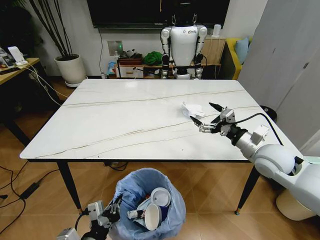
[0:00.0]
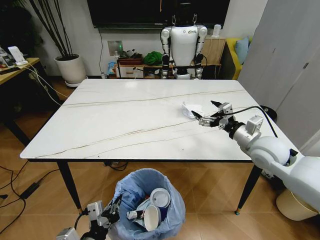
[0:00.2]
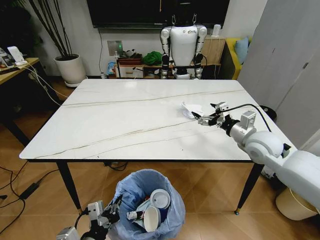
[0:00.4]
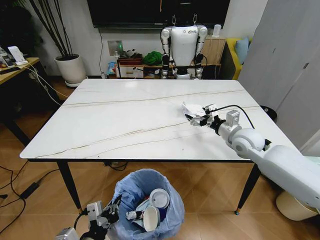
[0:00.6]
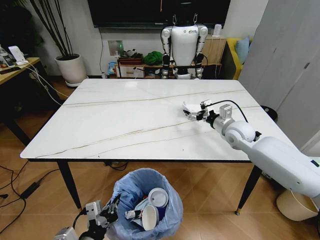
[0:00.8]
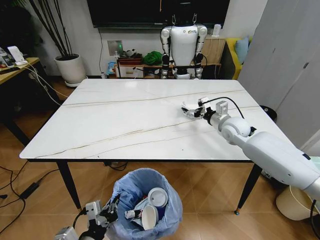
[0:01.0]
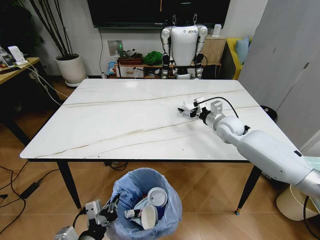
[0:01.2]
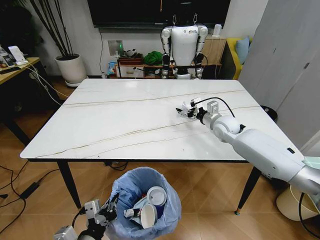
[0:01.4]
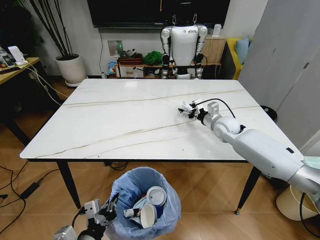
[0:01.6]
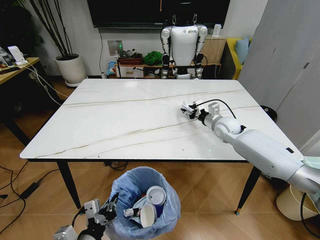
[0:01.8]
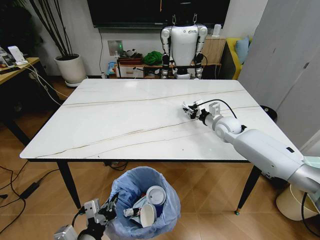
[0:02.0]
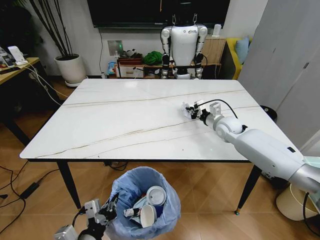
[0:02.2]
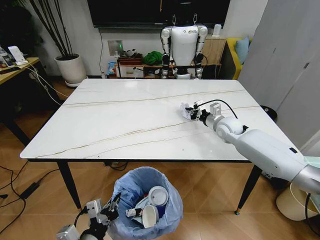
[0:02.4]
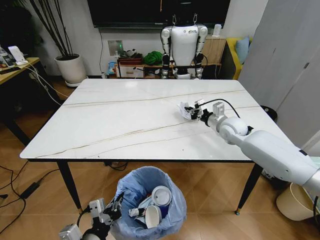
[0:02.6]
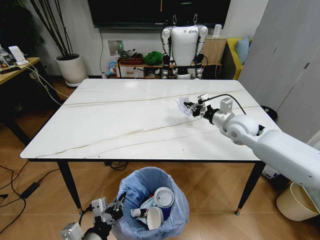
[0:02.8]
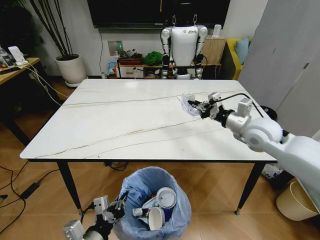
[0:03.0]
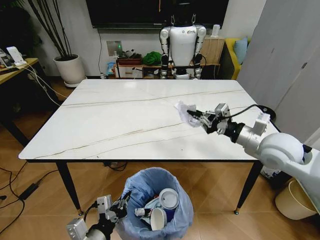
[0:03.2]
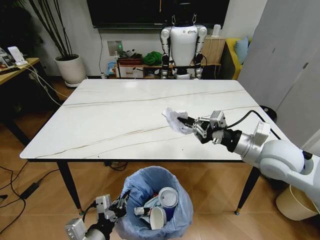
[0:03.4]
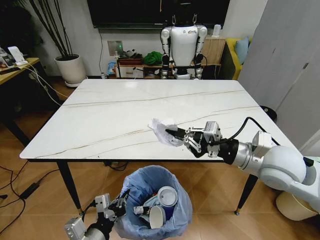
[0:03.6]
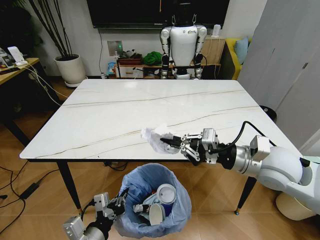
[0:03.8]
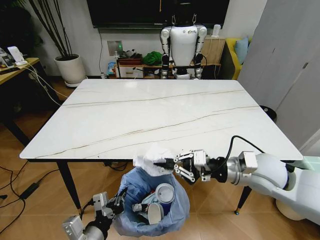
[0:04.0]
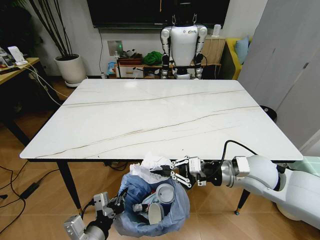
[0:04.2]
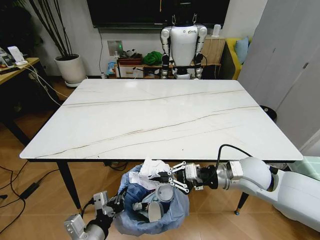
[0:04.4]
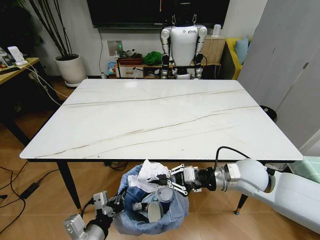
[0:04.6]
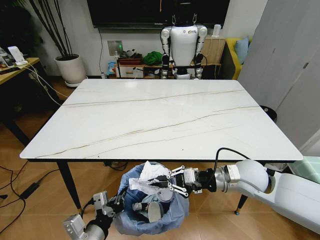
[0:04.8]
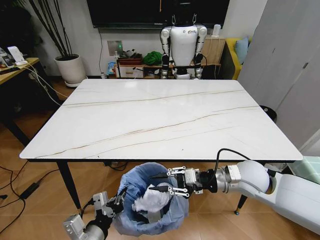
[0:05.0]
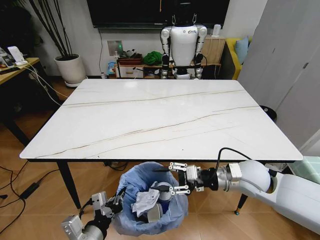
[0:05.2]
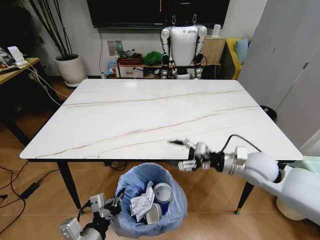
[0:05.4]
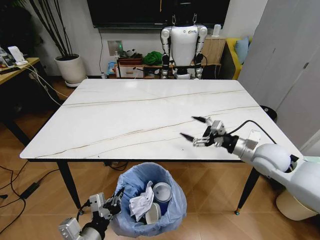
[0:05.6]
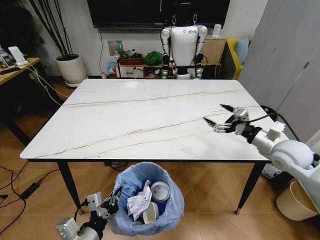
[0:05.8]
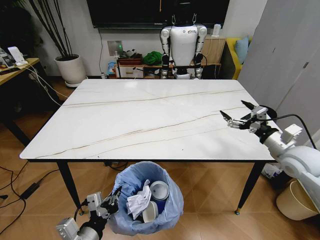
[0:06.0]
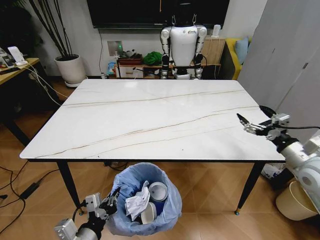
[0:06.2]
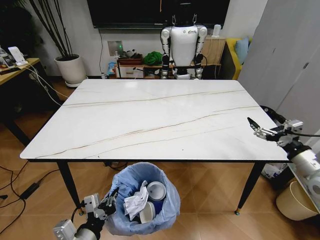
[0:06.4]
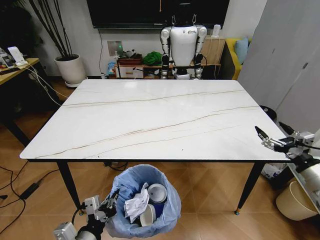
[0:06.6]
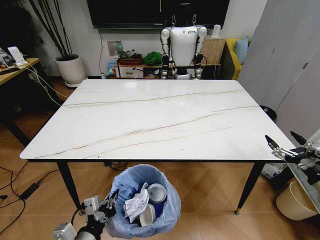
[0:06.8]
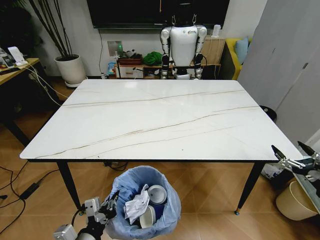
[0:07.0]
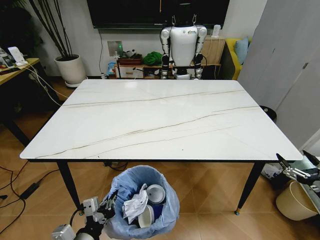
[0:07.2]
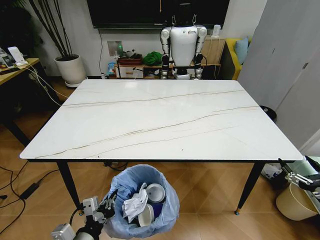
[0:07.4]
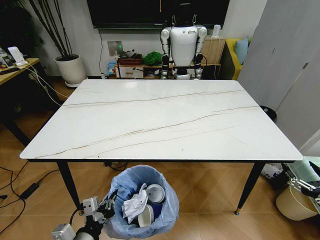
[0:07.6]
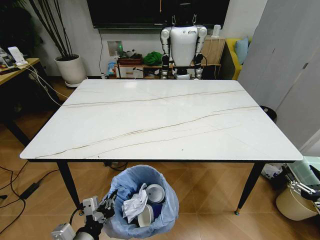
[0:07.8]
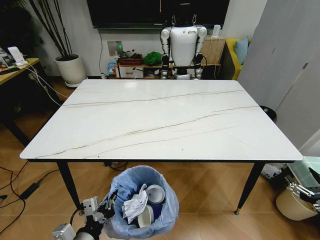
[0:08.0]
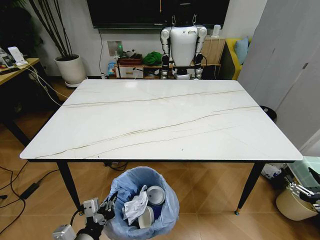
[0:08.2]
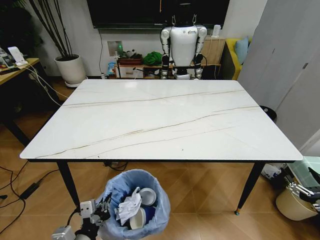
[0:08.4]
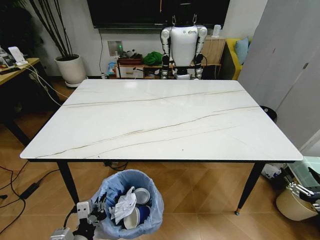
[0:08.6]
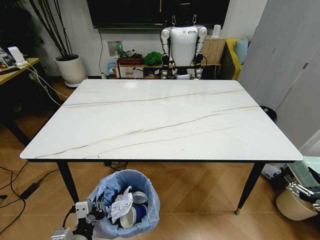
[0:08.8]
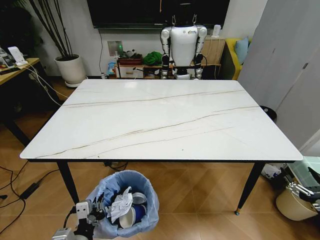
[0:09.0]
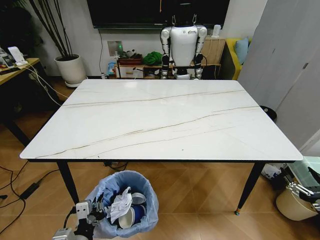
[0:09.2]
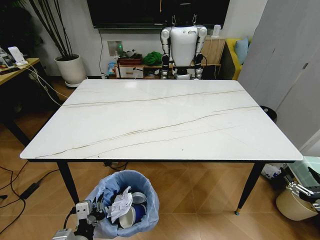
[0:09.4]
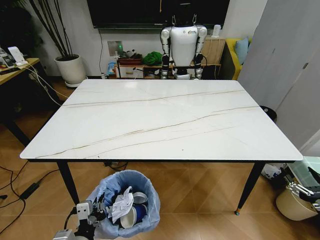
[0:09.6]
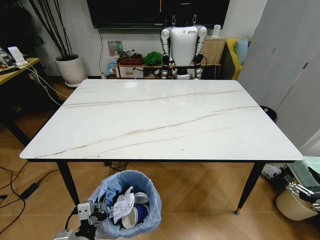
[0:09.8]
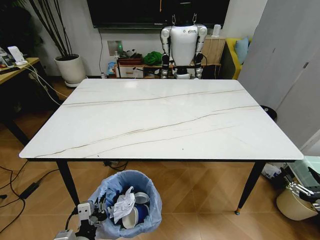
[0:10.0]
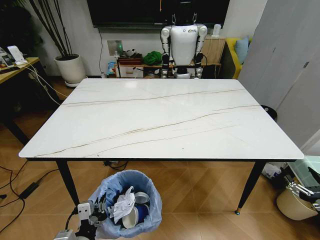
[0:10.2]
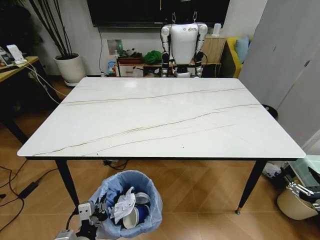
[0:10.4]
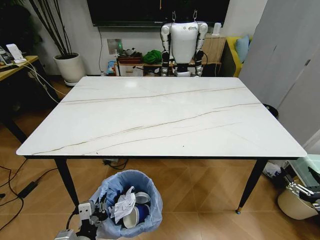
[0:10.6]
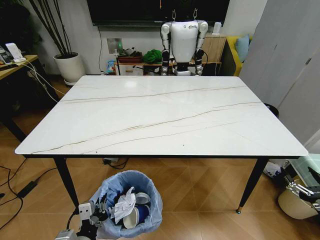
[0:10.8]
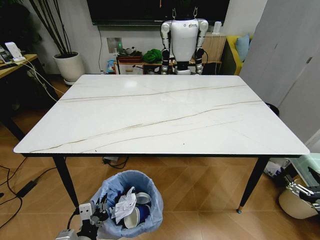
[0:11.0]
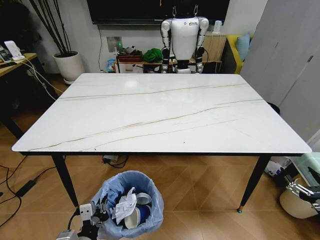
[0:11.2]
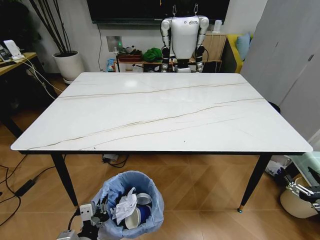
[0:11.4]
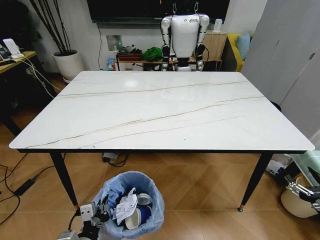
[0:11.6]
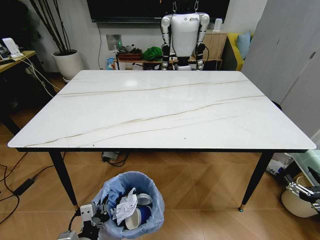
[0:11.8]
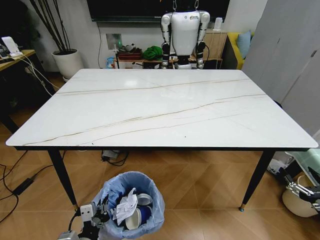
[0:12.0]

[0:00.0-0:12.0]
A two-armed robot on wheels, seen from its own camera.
Task of the whole recording: Pick up the trash bin and place the trash from the table into it.
0:00.0 to 0:01.6: The right gripper travels forward by about 20 cm.
0:01.6 to 0:03.0: The right gripper is displaced backward and upward by approximately 15 cm, and closes its fingers.
0:03.0 to 0:04.4: The right gripper shifts some 15 cm backward, downward and to the left.
0:04.4 to 0:06.0: The right gripper shifts about 15 cm to the right, and opens.
0:06.0 to 0:07.6: The right gripper goes some 25 cm backward, downward and to the right.
0:07.6 to 0:09.0: The grippers move only a little.
0:09.0 to 0:10.4: The two grippers keep their place.

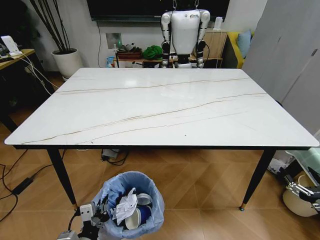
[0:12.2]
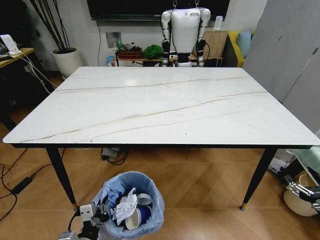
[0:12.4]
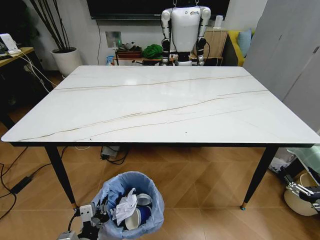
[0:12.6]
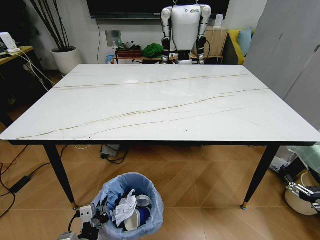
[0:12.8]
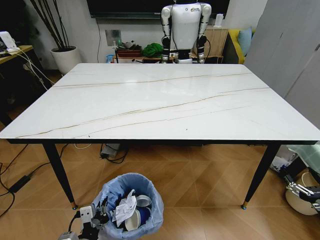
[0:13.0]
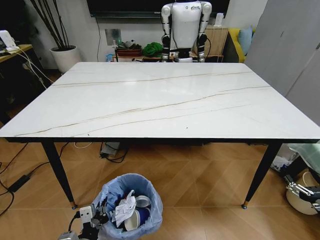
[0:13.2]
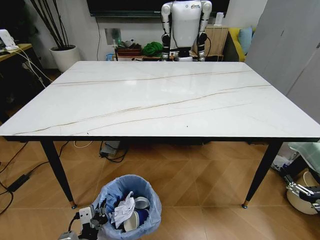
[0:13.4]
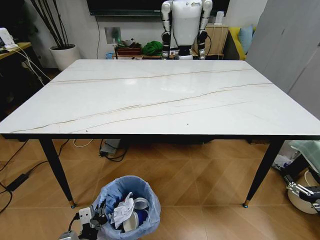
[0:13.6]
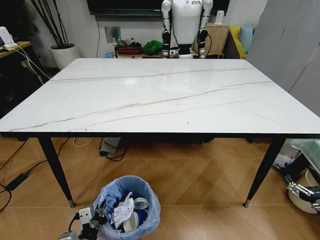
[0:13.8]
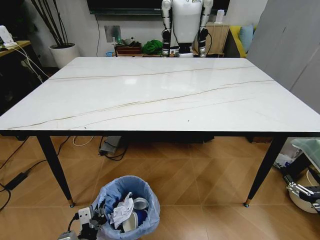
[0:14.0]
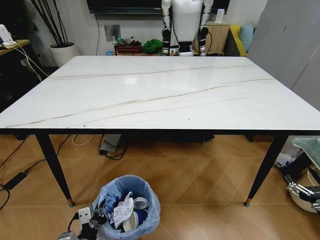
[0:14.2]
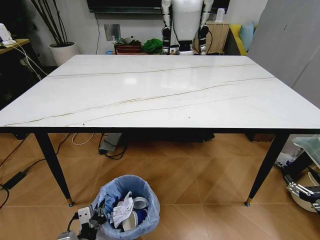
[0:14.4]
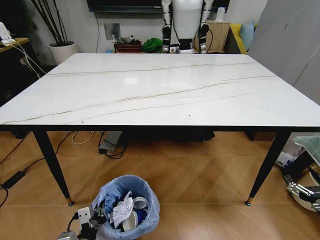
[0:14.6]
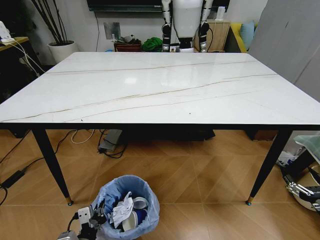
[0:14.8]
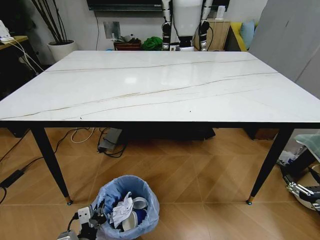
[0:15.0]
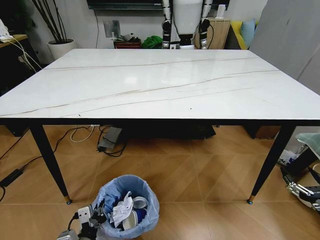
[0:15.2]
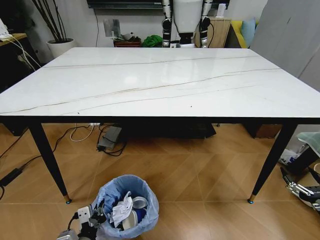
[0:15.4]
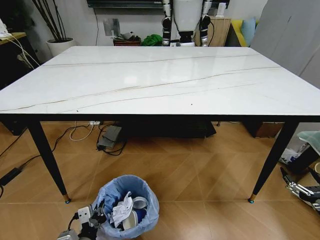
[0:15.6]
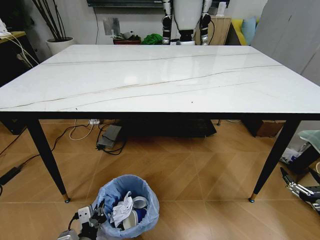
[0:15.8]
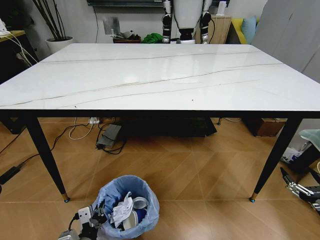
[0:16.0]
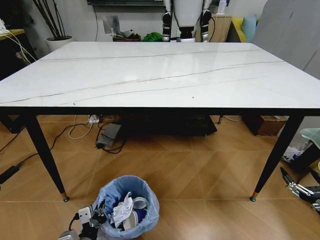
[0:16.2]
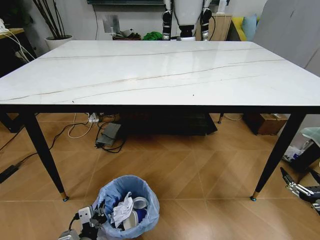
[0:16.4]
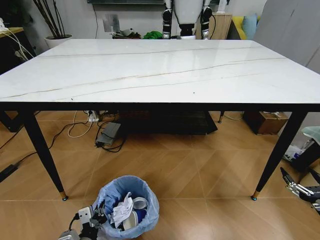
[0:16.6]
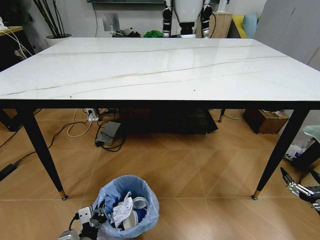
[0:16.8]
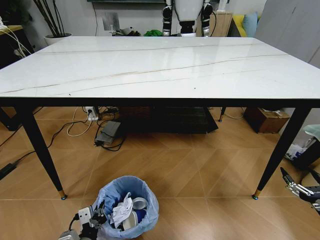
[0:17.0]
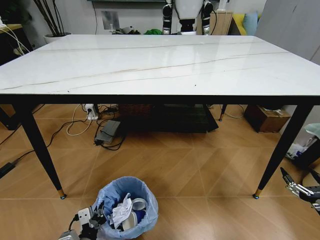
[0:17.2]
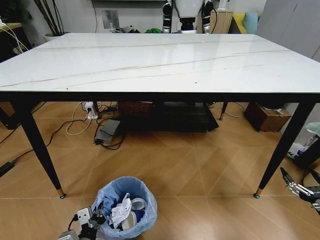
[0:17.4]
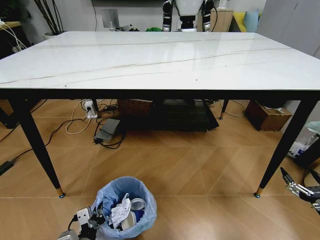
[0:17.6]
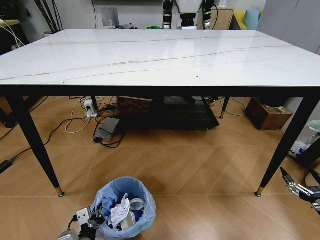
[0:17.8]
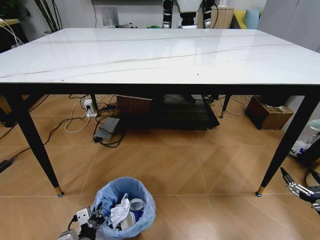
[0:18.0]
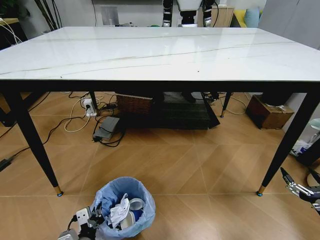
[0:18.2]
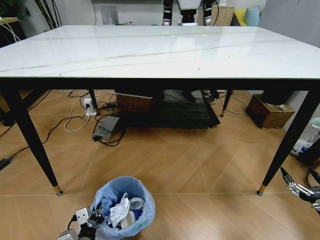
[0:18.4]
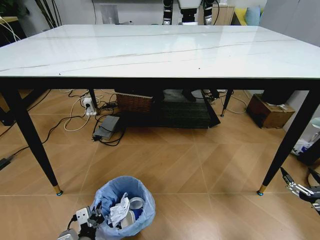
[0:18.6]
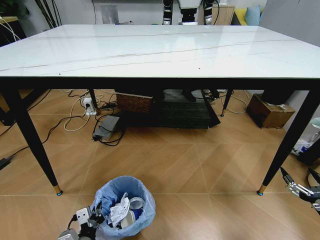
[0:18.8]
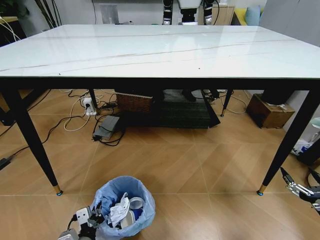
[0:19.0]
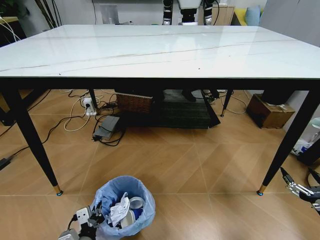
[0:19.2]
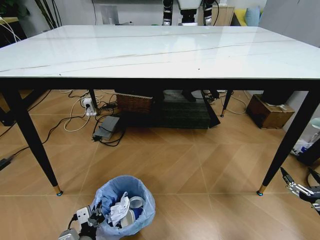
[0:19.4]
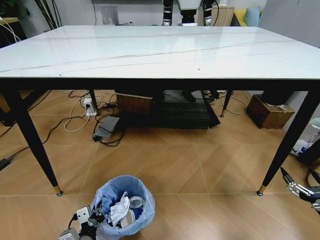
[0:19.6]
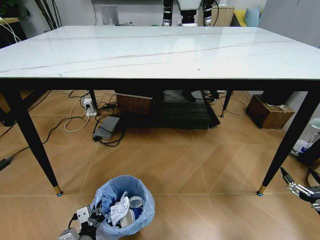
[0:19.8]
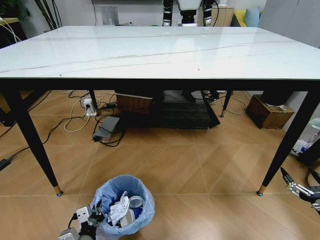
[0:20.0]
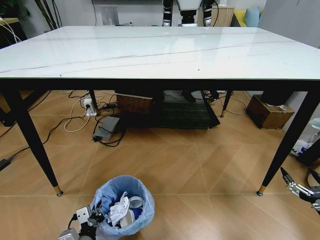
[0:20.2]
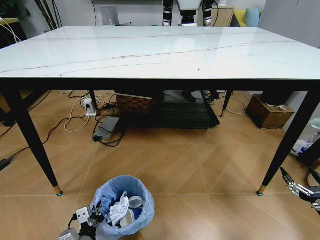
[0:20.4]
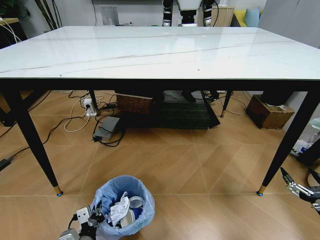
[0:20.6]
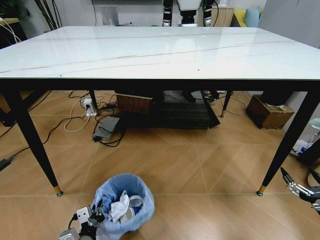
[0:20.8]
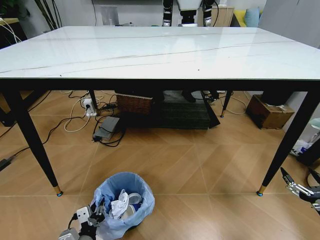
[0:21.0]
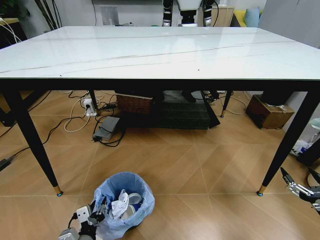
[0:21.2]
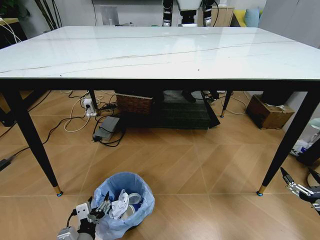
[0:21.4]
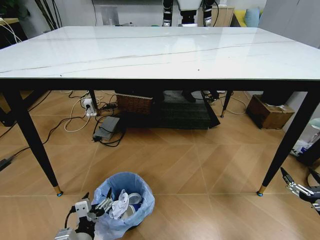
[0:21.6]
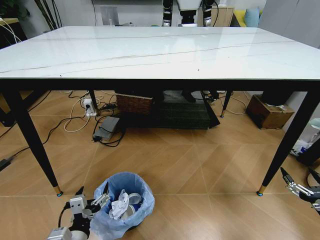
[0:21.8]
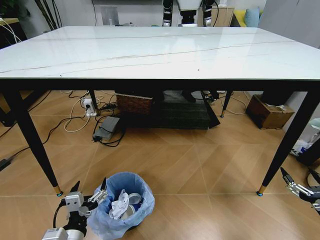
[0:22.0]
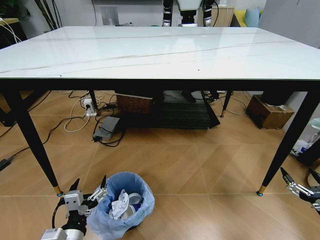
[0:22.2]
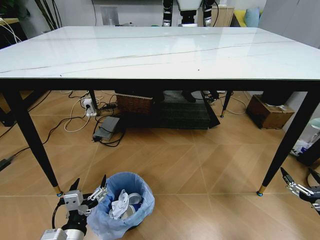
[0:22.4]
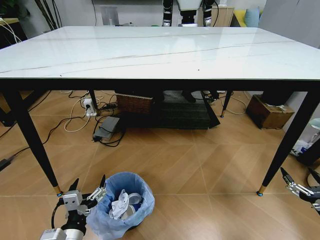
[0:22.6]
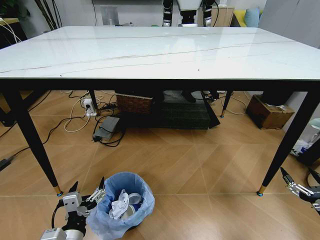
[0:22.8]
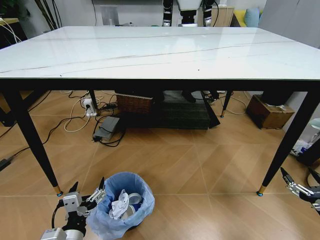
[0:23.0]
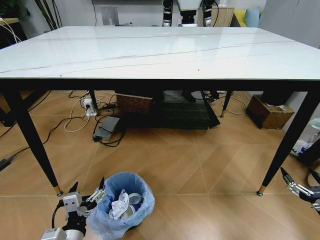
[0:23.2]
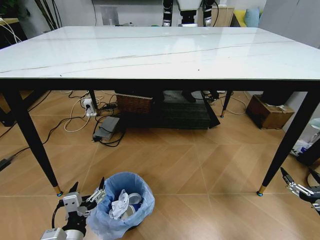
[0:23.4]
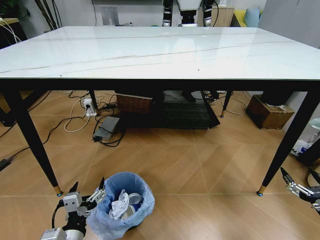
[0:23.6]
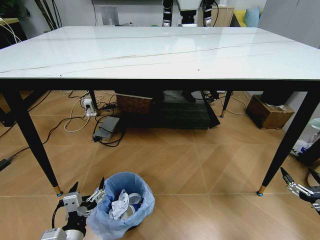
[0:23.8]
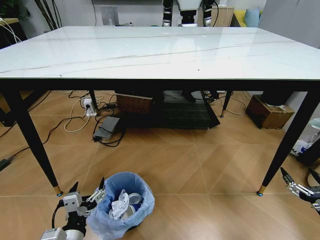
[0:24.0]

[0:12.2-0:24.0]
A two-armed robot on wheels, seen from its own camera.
Task of the whole recording: Pick up the trash bin and place the trash from the table into it.
0:18.2 to 0:21.0: Both grippers stay about where they are.
0:21.0 to 0:22.6: The left gripper moves upward, approximately 10 cm, and opens up.
0:22.6 to 0:24.0: Both grippers stay put.
